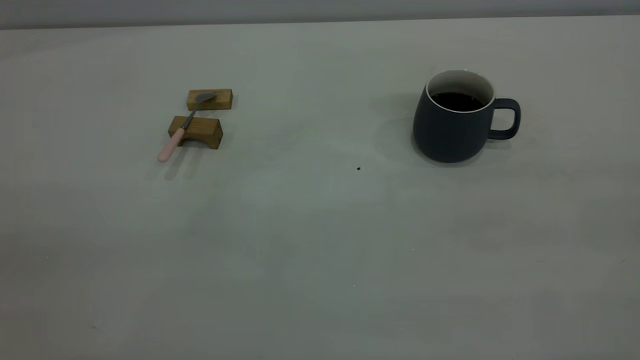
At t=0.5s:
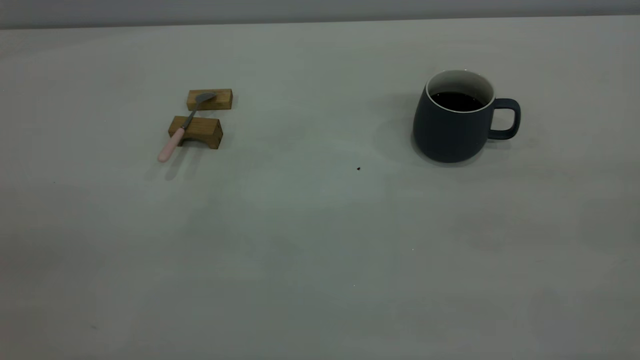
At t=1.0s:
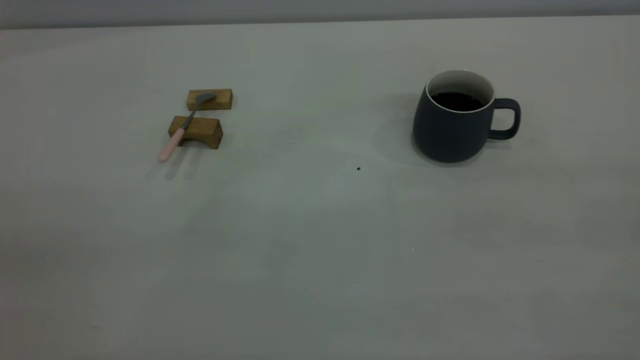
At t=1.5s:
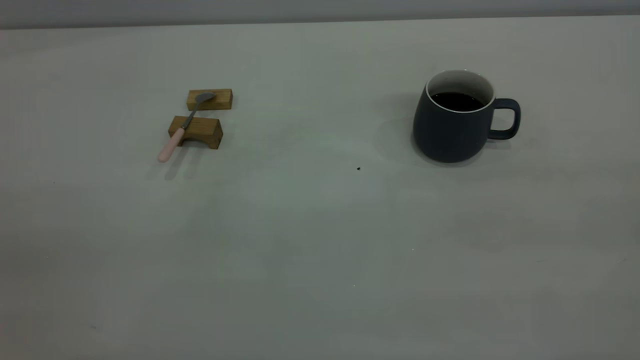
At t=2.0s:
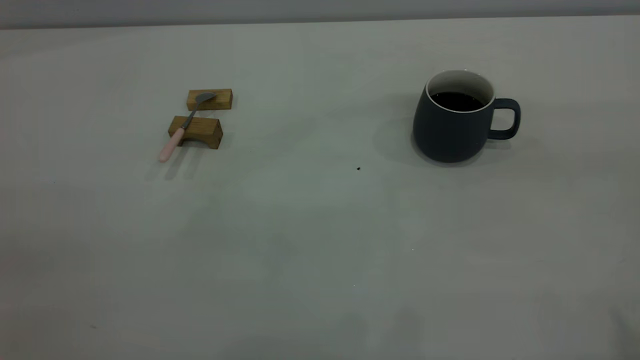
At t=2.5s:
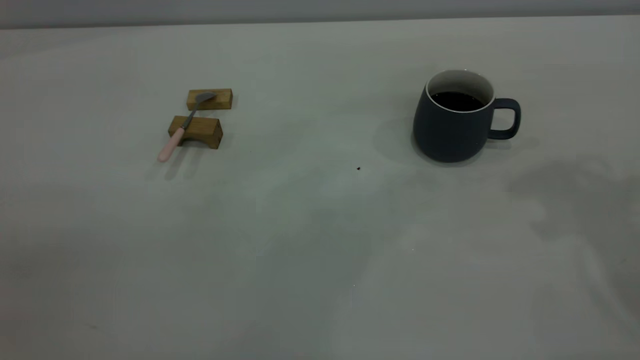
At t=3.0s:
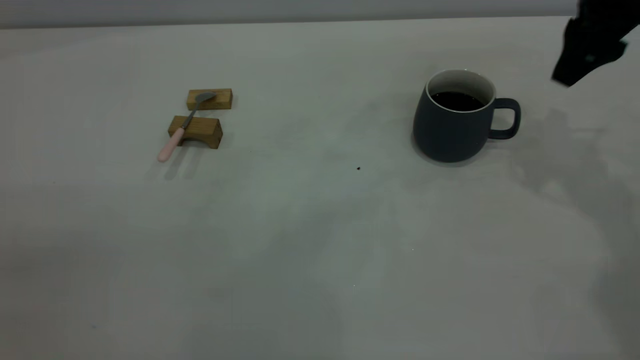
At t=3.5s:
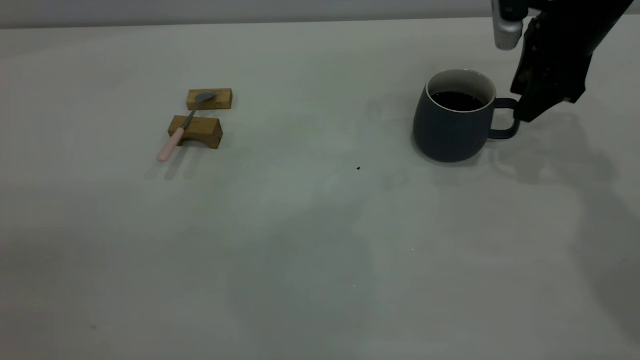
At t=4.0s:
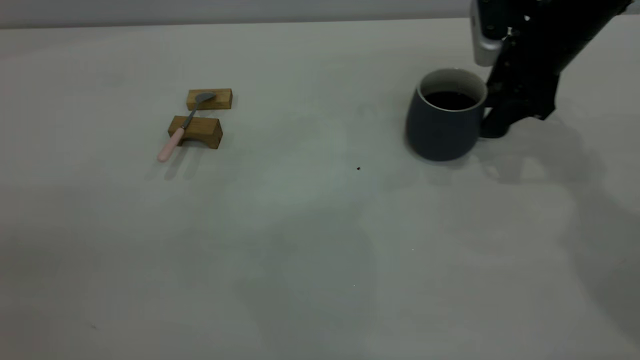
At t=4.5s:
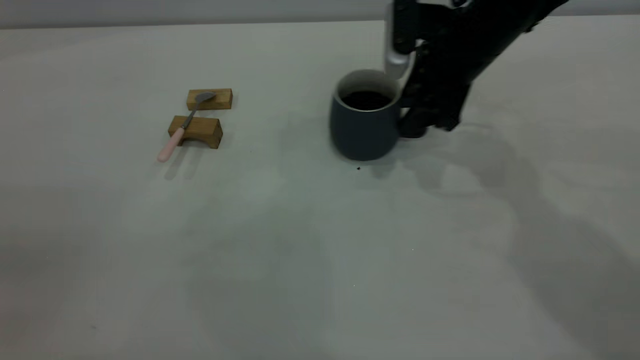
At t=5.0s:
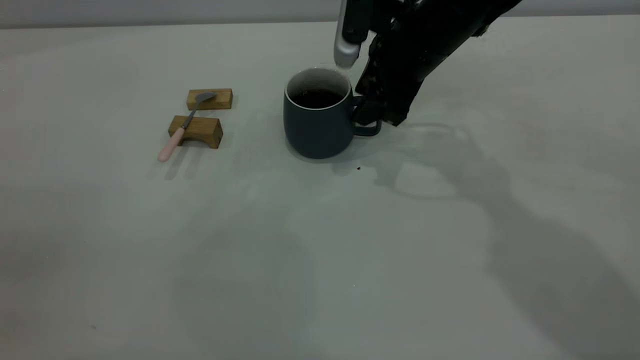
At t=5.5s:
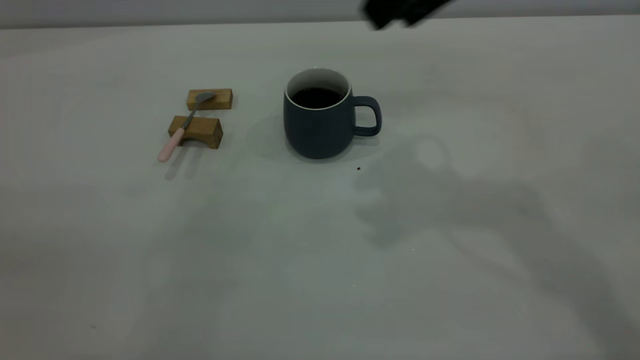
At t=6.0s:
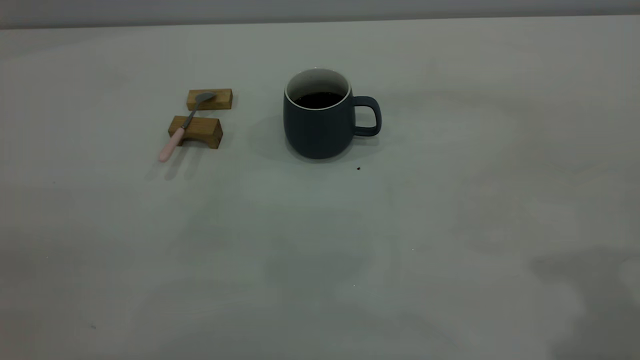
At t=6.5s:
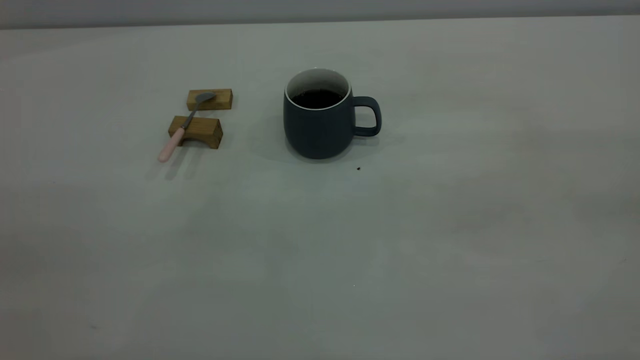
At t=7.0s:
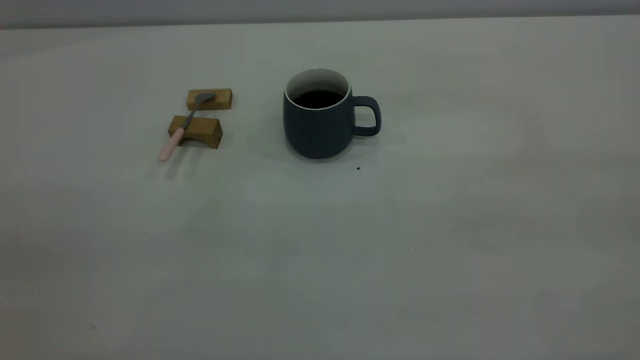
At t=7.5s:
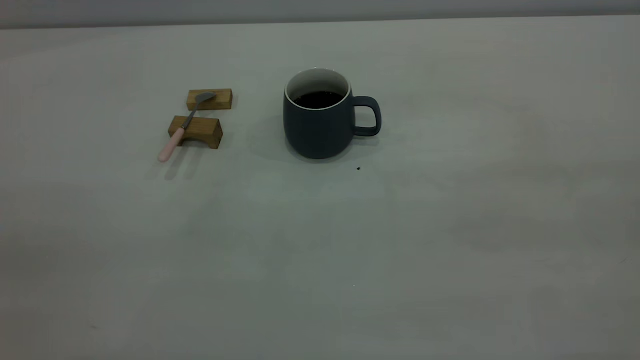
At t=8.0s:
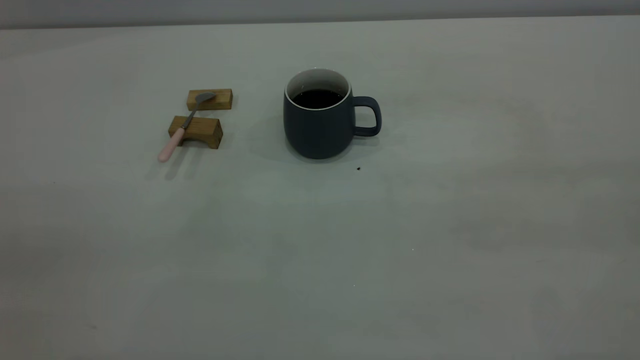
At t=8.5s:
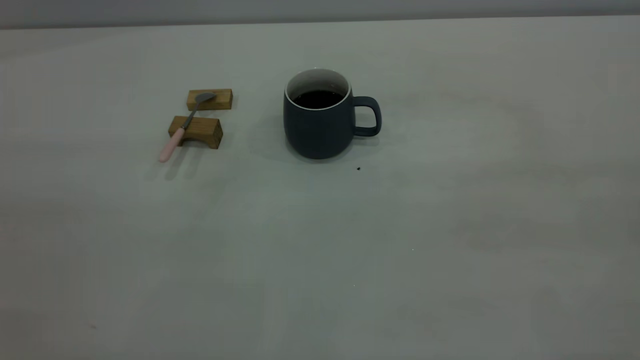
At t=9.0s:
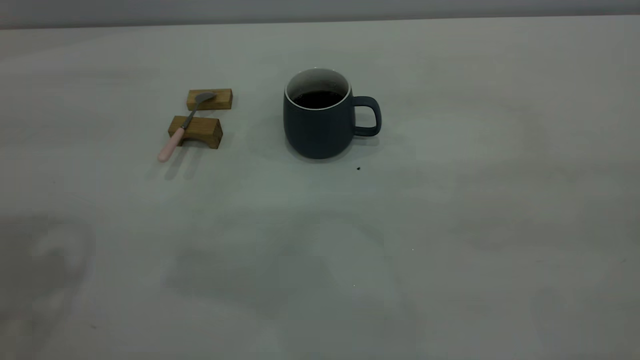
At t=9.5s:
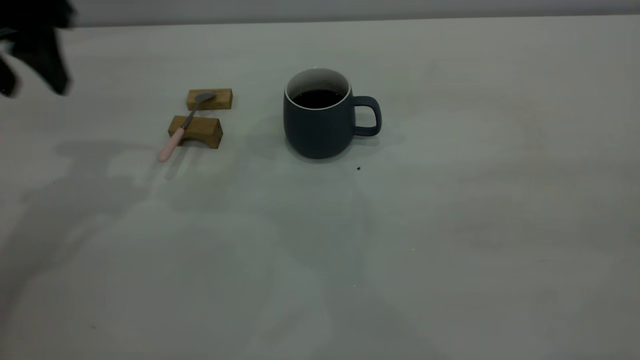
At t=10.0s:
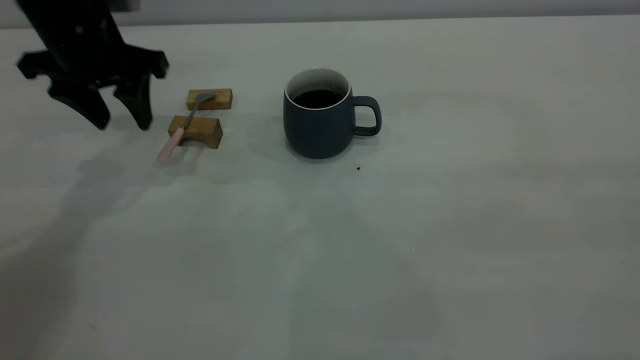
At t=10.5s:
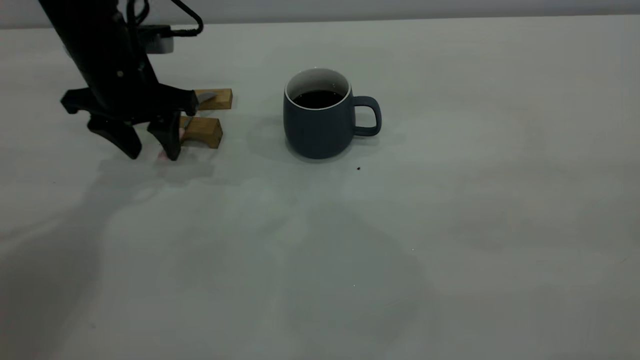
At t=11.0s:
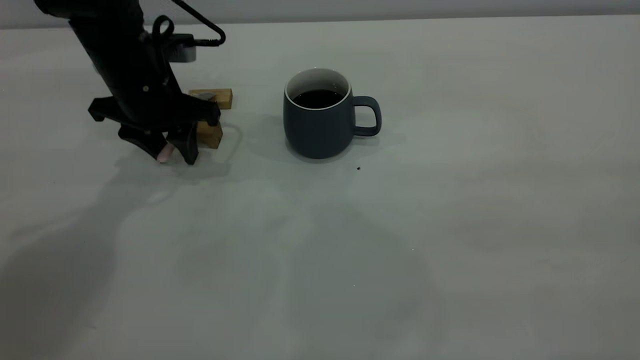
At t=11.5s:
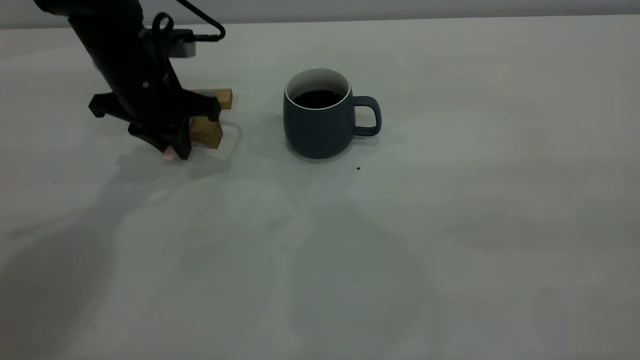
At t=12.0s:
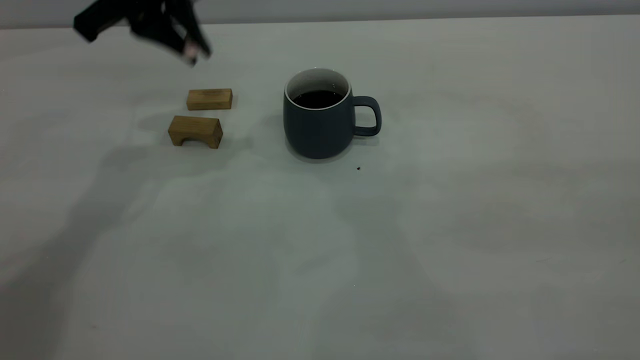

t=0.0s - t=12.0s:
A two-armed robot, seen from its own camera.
Step, t=0.0s - t=5.0s: Move the cup with coffee to the center of view.
Step, t=5.5s - t=11.5s: Pick up the spoon.
t=2.0s - t=4.0s: The right gripper shifts roughly 40 cm forward and downward.
t=4.0s - t=6.0s: The right gripper goes roughly 35 cm backward and upward.
t=8.0s - t=10.0s: The left gripper moves forward and downward, roughly 50 cm.
t=10.0s - t=12.0s: The left gripper shifts roughly 10 cm upward and to the right, and closes up.

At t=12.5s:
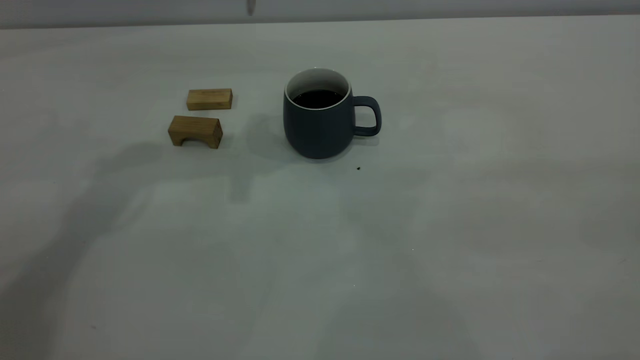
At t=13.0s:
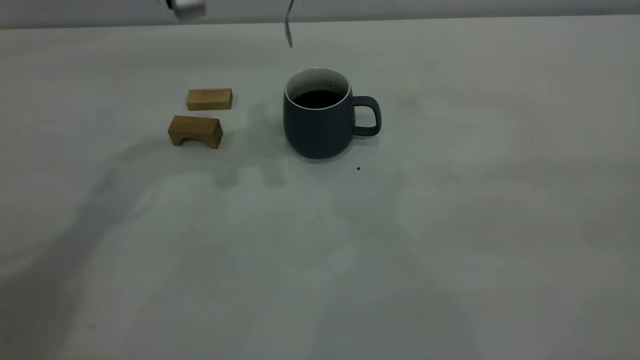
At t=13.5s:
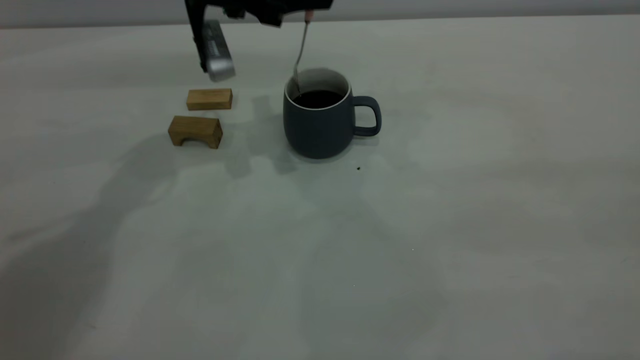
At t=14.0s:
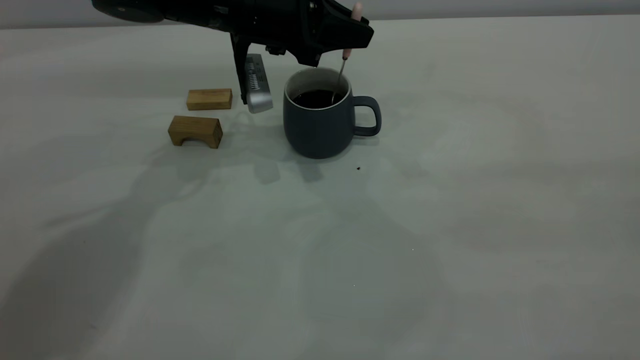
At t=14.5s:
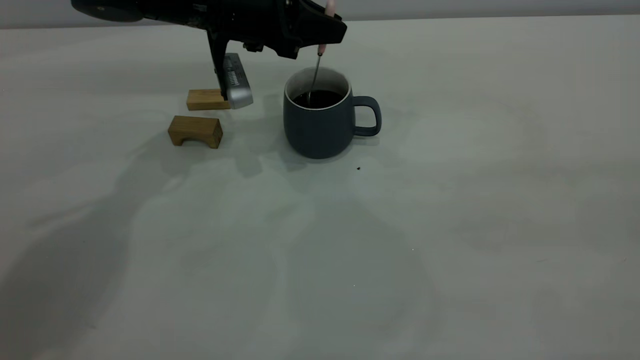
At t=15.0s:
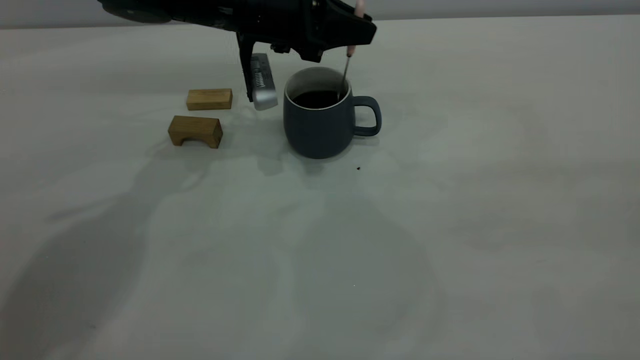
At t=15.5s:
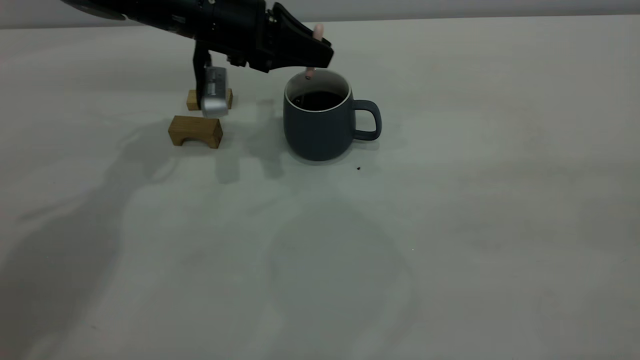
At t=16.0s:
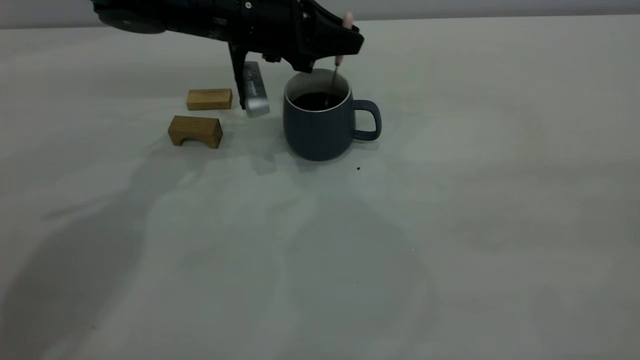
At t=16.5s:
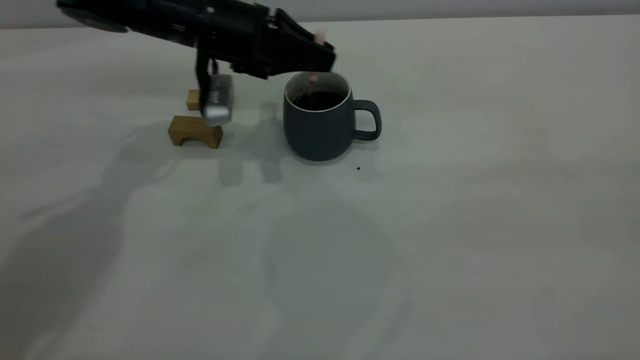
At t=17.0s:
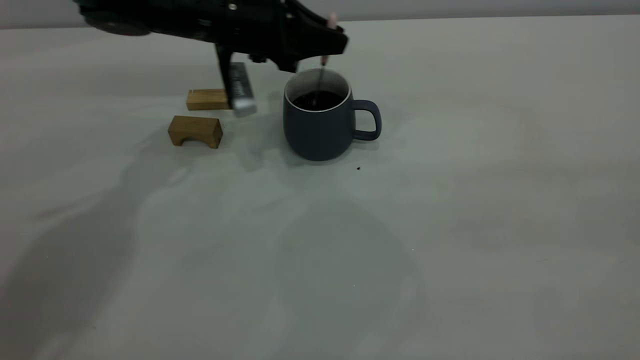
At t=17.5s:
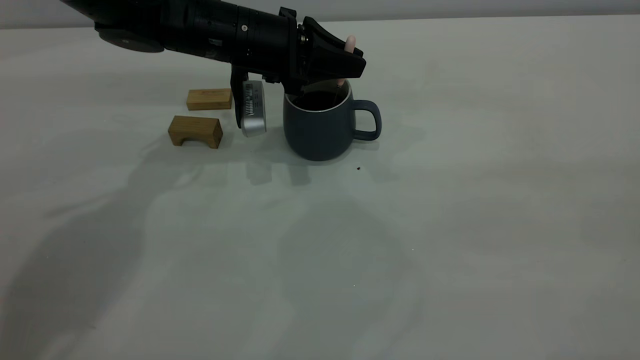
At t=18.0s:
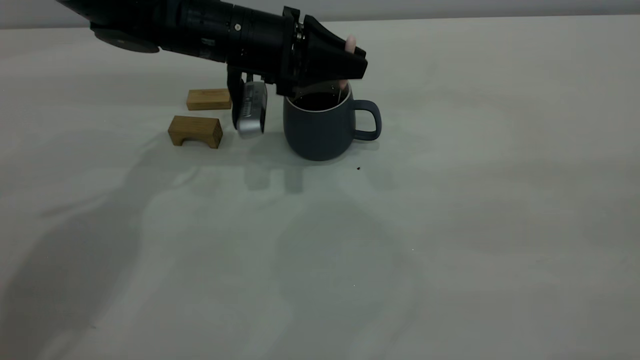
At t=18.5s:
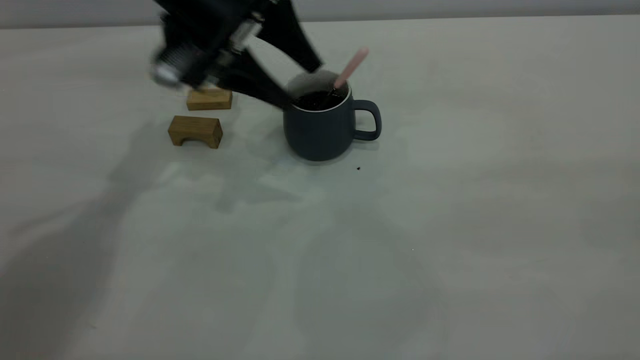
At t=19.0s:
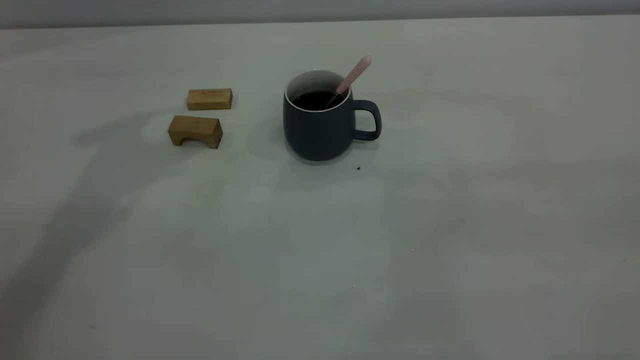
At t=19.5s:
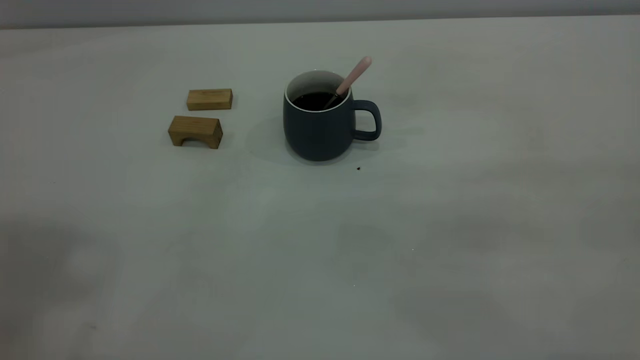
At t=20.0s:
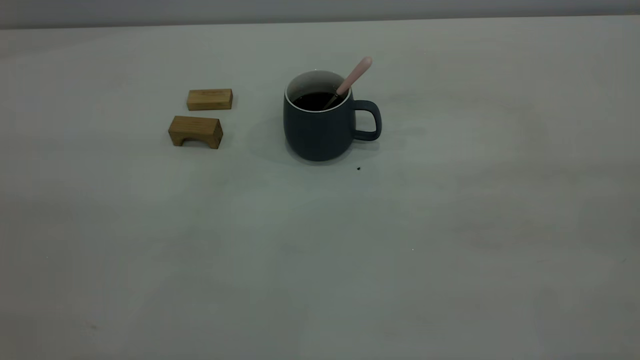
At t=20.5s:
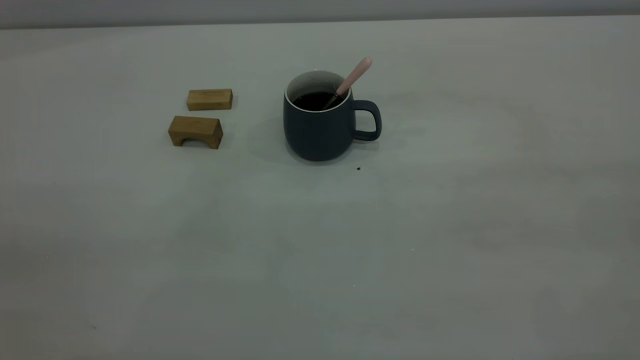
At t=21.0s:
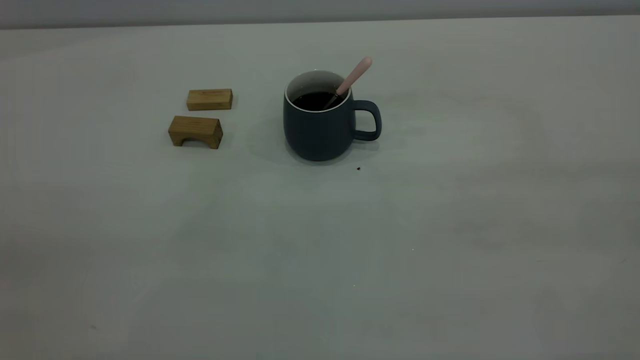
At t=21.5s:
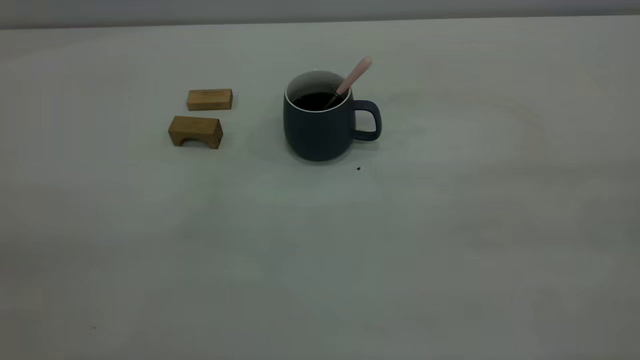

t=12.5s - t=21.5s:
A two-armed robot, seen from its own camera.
Step, t=12.5s - t=18.5s: Stir the coffee in the cup.
t=12.5s - t=14.5s: The left gripper travels downward by roughly 15 cm.
t=14.5s - t=17.0s: There are only small adjustments of the grippers.
t=17.0s - t=19.5s: The left gripper is displaced upward and backward by approximately 50 cm, and opens, then closes again.
